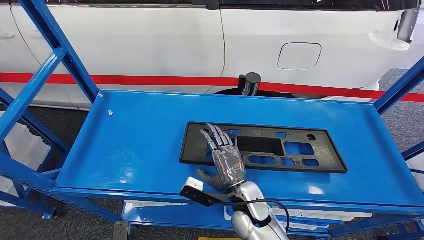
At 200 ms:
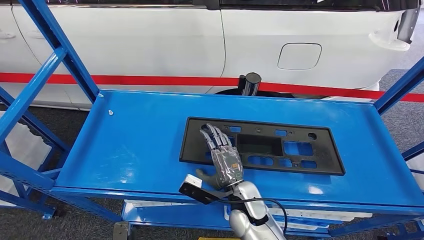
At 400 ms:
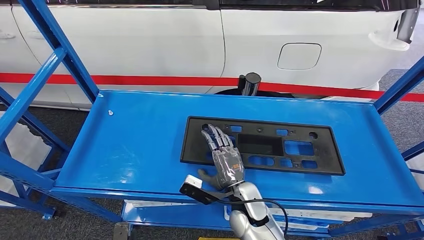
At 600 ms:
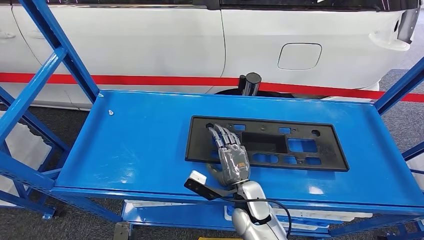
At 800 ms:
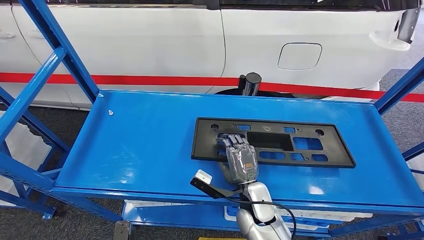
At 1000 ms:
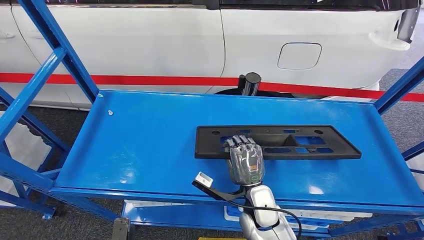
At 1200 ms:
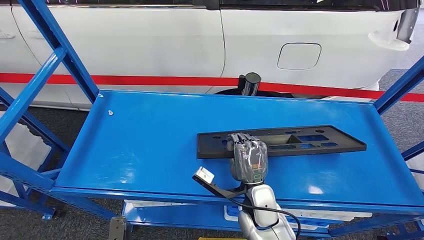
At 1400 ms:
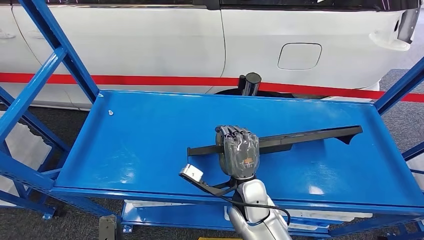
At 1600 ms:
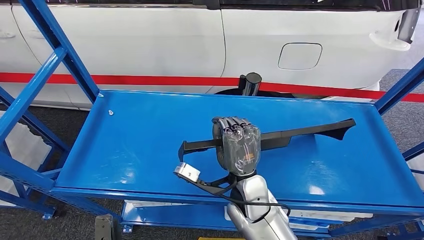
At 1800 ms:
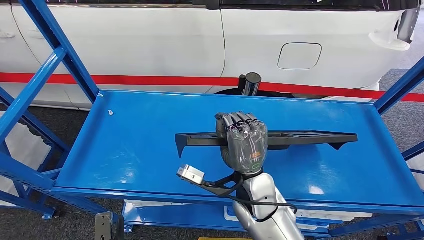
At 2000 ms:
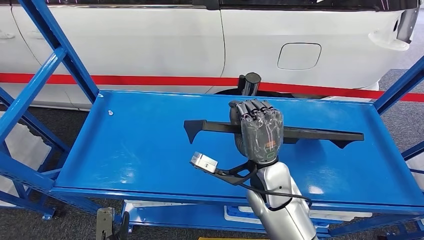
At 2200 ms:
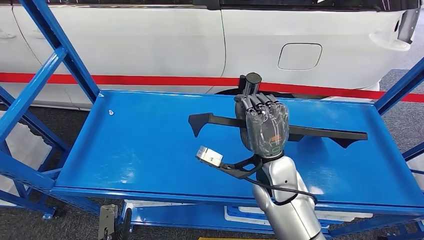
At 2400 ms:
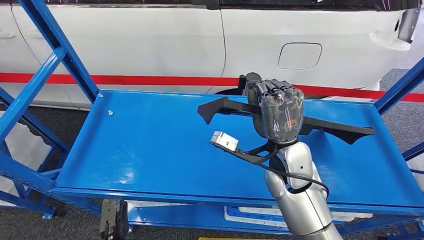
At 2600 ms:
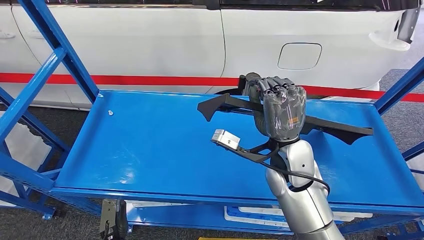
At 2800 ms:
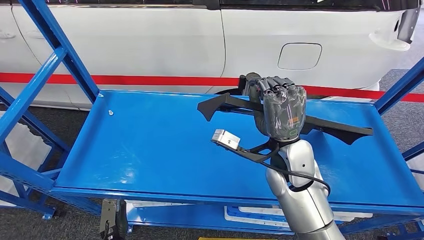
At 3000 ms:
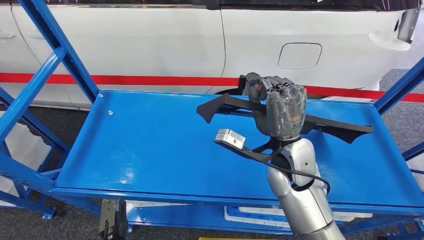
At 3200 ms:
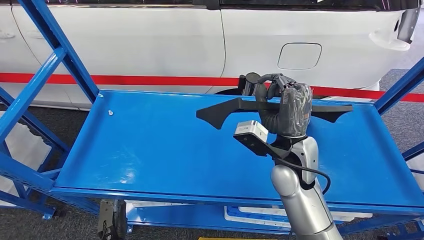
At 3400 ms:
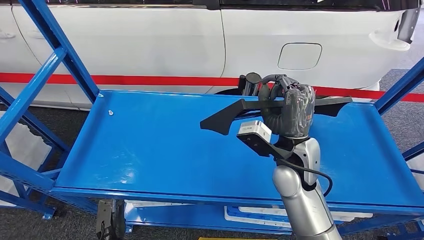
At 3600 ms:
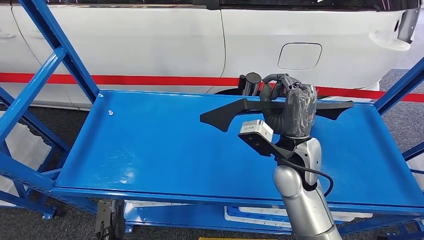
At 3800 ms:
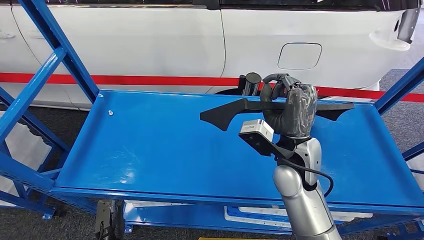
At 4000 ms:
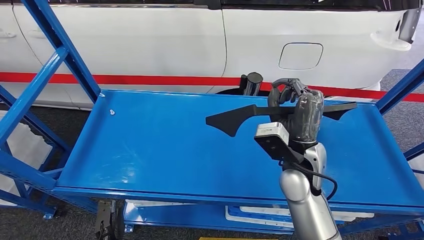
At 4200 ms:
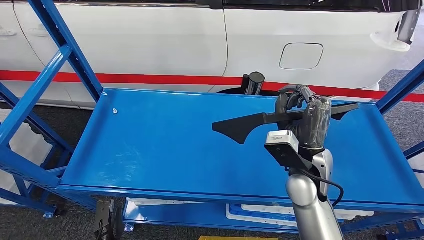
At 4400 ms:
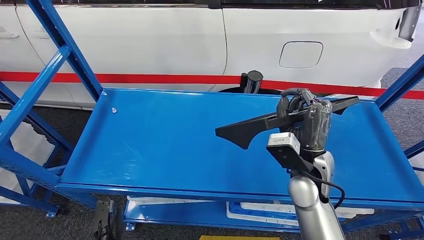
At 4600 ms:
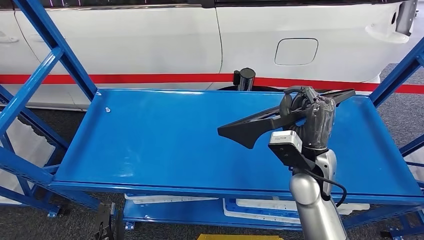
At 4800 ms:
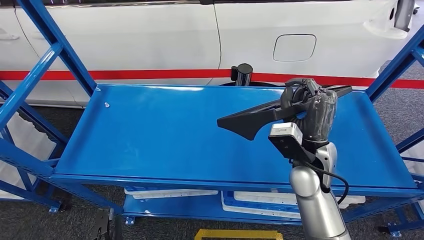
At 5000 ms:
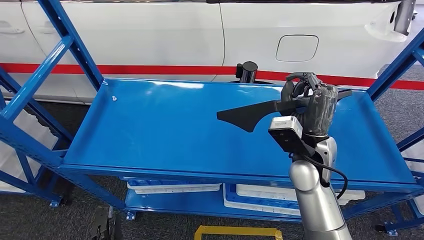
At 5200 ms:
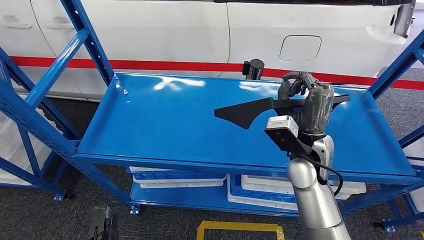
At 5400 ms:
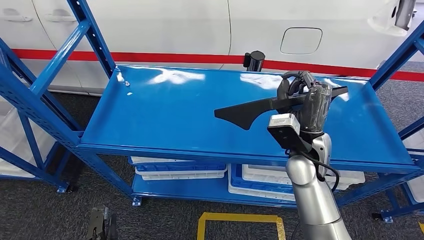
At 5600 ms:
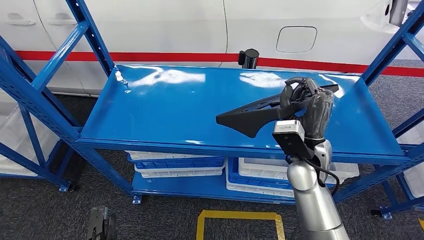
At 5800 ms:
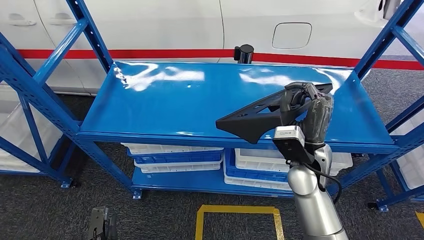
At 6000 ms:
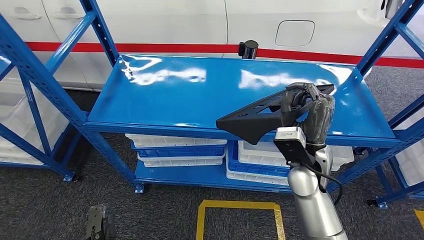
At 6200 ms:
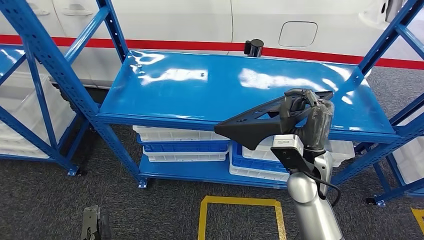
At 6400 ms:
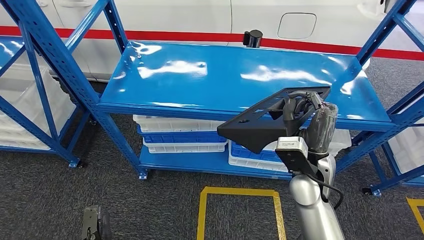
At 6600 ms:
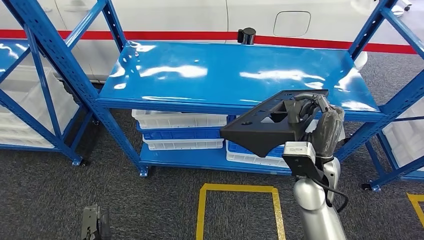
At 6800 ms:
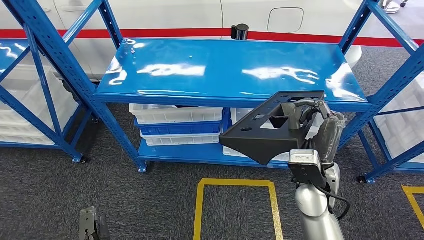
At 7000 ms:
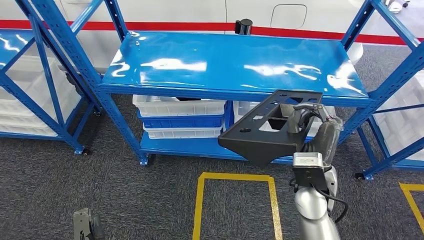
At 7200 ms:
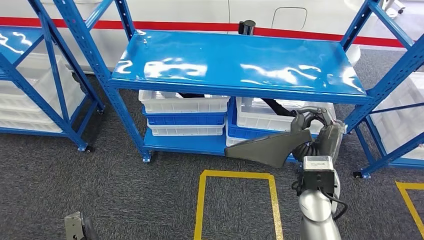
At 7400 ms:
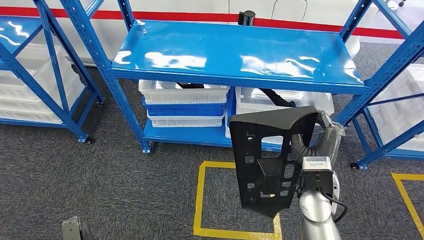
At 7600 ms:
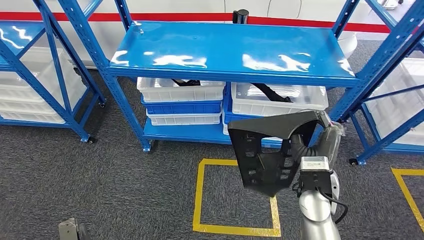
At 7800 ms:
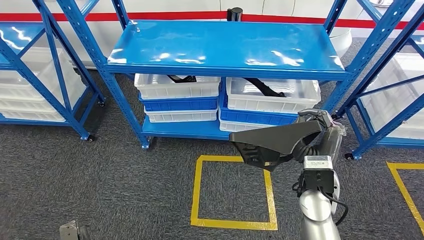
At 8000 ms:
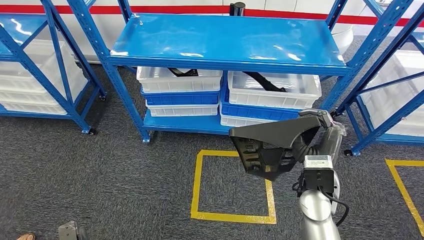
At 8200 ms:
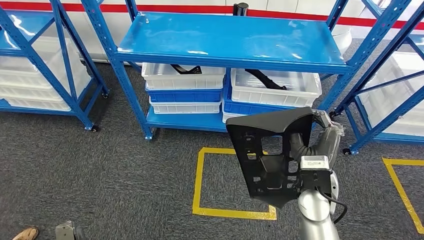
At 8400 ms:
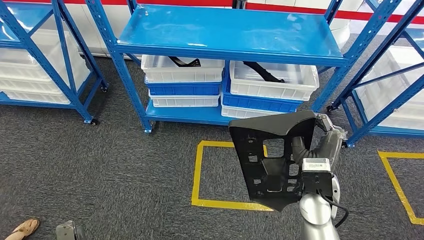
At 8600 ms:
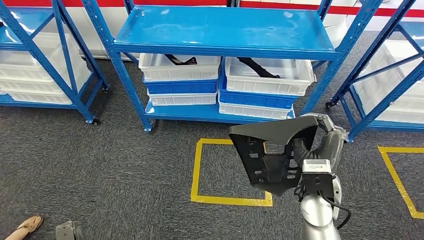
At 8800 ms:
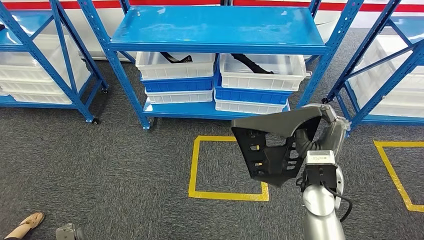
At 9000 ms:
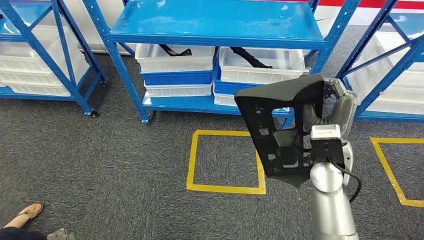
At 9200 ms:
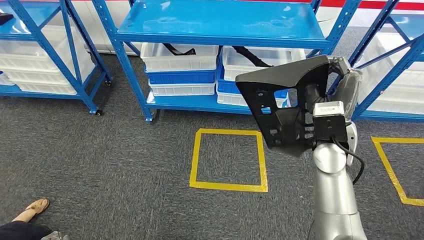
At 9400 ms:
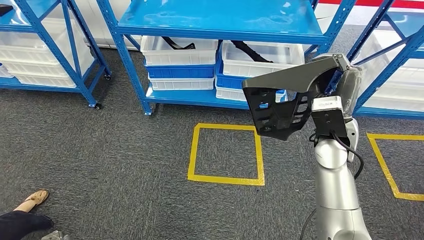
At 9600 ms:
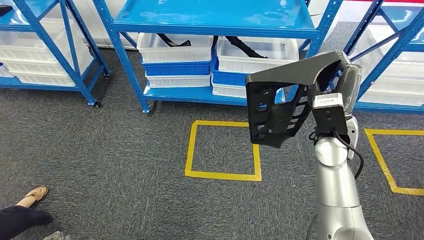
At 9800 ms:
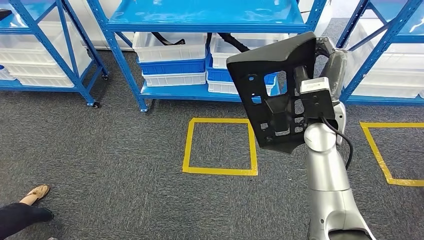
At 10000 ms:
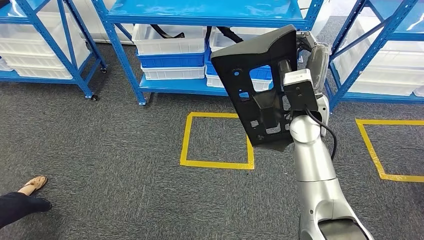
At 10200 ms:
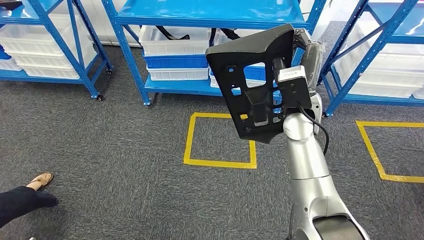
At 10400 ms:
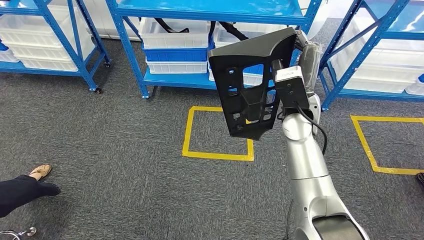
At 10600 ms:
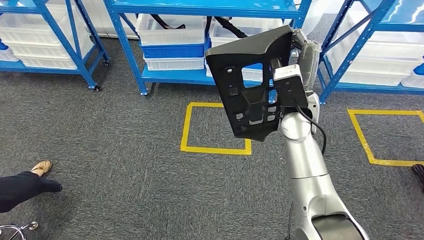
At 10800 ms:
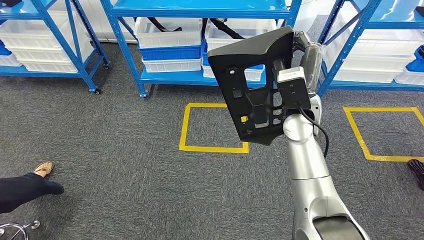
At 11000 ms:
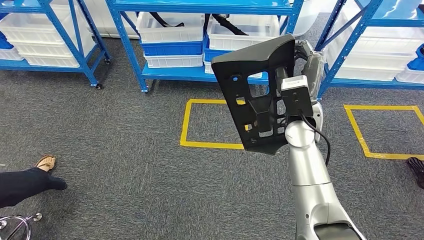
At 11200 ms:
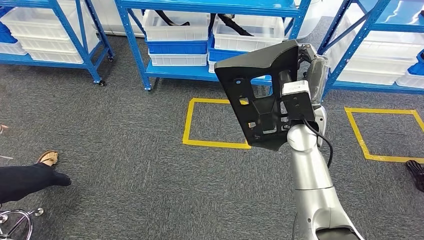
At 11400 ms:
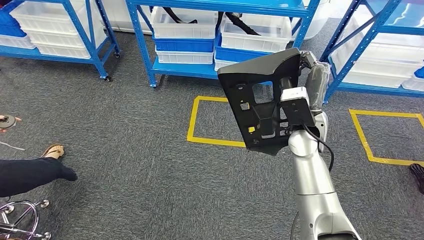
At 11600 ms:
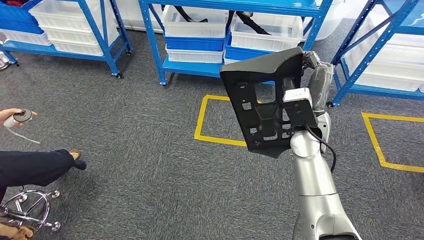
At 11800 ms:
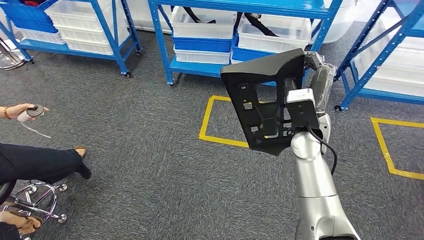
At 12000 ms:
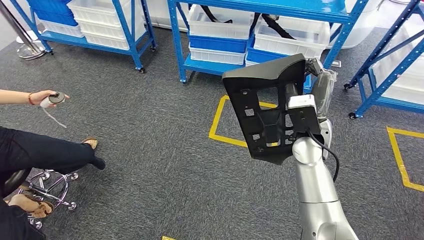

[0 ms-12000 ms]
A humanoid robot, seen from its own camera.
Step, 0 ms to 3600 ms: Pick up the large material from the shelf.
0 ms to 1600 ms: The right hand travels upward by approximately 5 cm.
1600 ms to 3000 ms: The right hand moves to the right, upward and forward, approximately 15 cm.

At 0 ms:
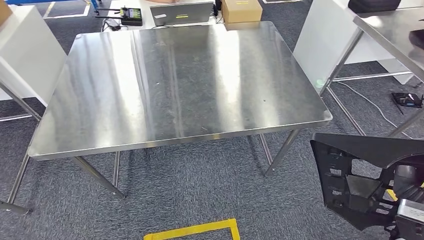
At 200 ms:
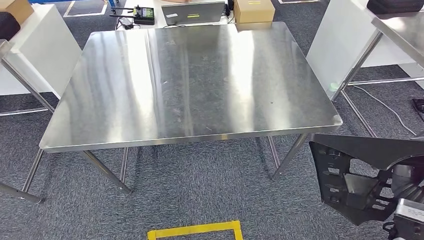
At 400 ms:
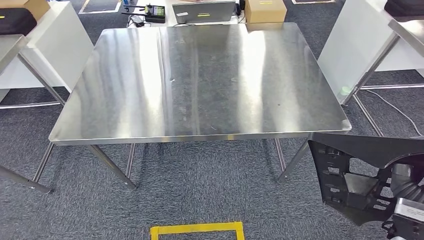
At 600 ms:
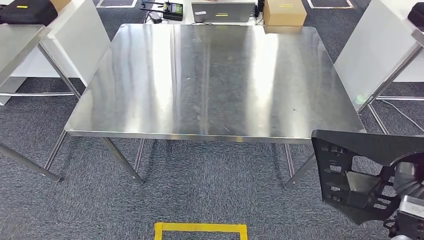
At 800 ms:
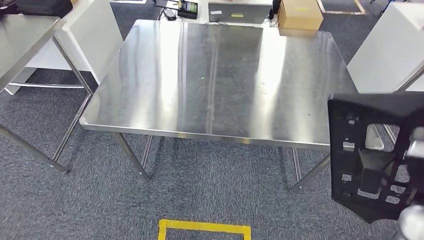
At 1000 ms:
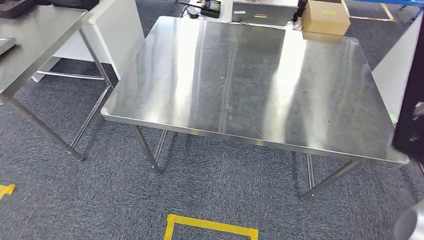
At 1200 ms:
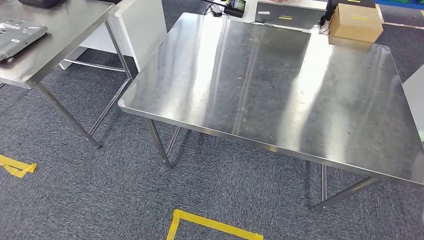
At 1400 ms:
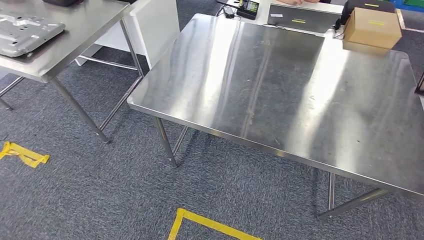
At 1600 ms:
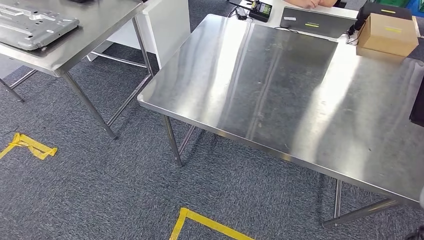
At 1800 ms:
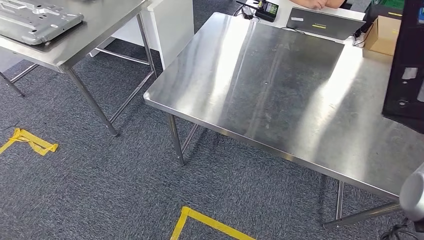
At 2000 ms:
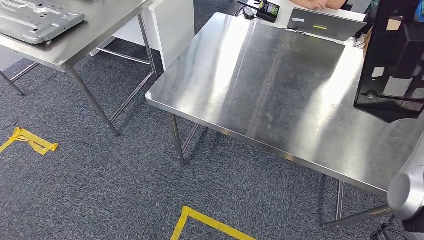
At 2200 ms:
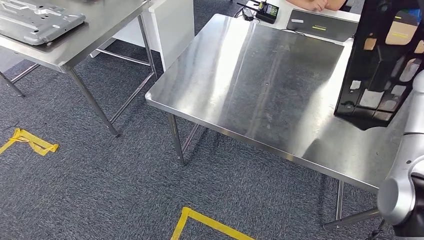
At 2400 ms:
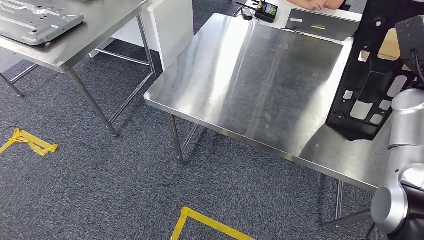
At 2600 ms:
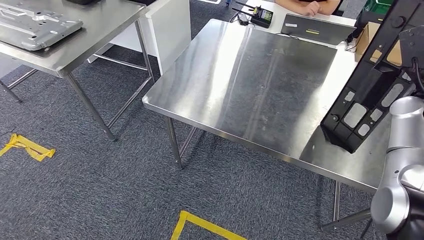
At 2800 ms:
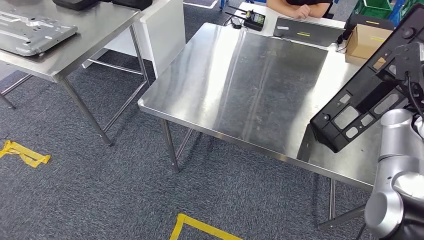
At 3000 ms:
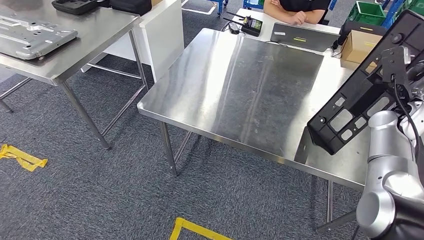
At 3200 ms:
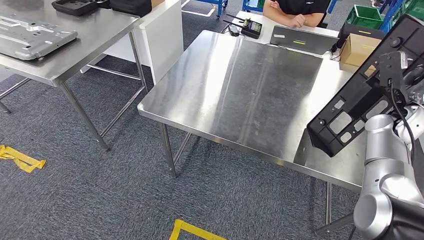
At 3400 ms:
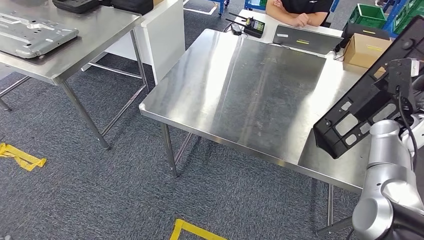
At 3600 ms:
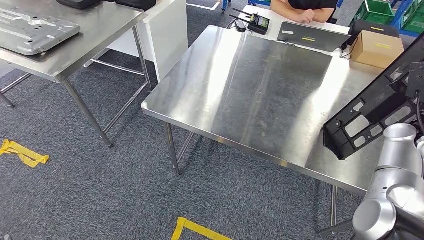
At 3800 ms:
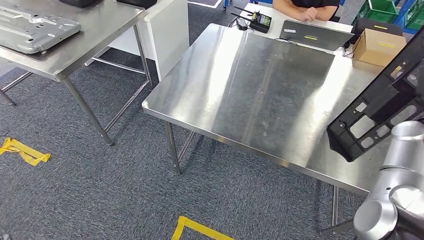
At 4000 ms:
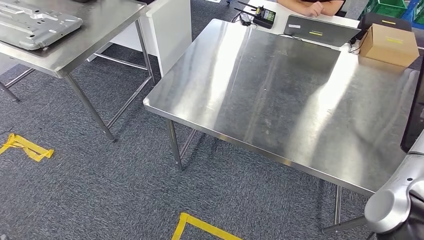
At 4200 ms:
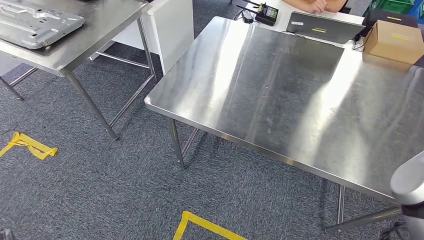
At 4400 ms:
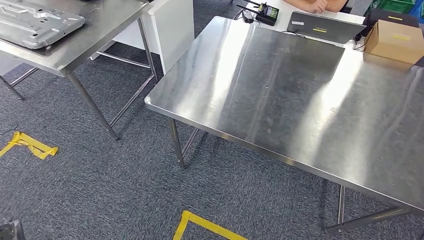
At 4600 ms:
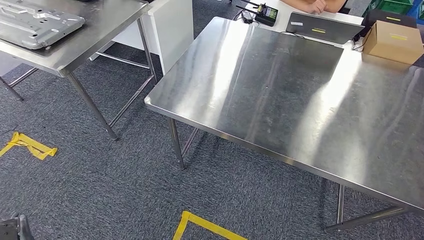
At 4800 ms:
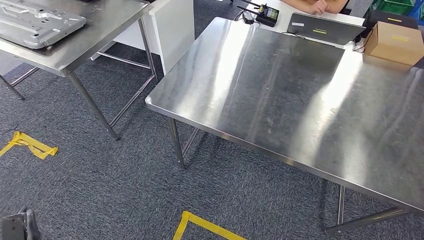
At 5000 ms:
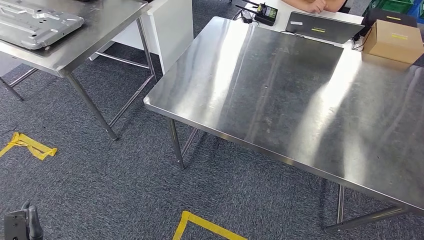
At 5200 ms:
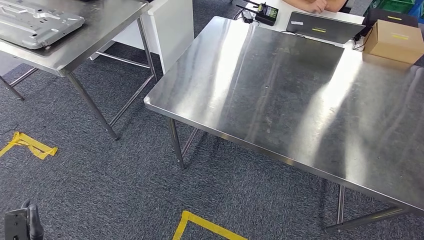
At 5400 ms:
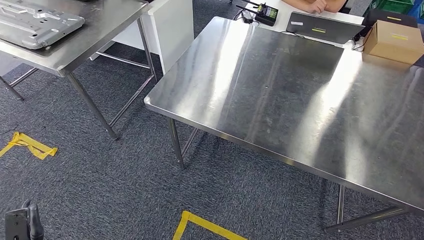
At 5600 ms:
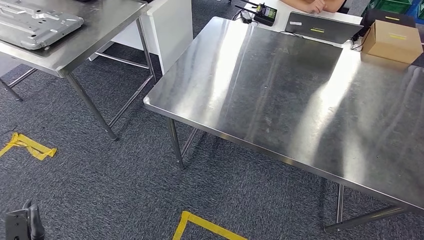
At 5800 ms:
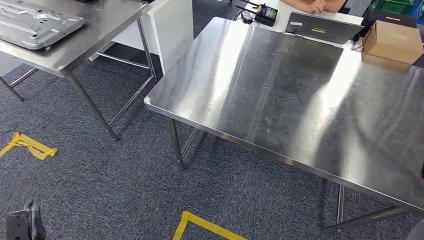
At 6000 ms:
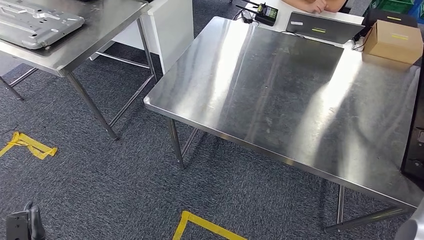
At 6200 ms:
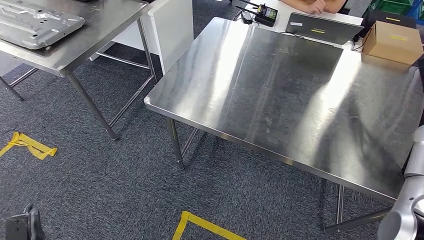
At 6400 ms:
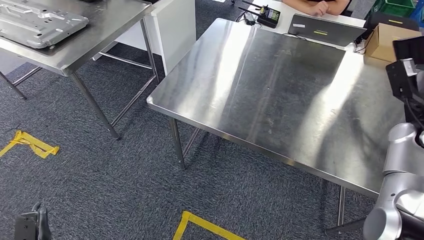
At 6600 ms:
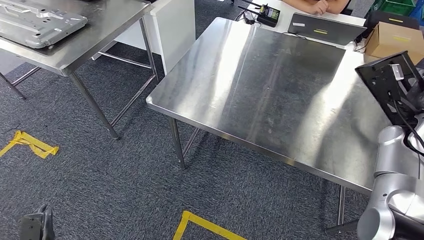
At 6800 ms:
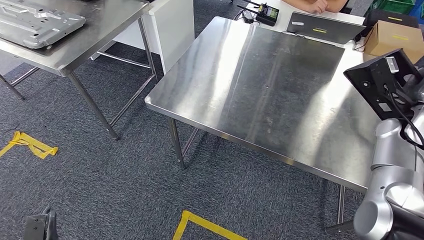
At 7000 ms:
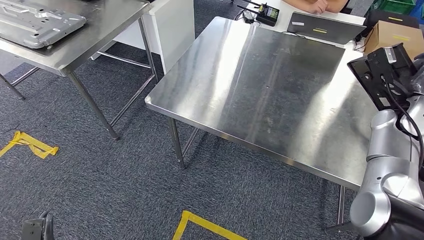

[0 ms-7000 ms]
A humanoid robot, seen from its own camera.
5600 ms to 7000 ms: The right hand is displaced to the left, downward and forward by about 25 cm.
